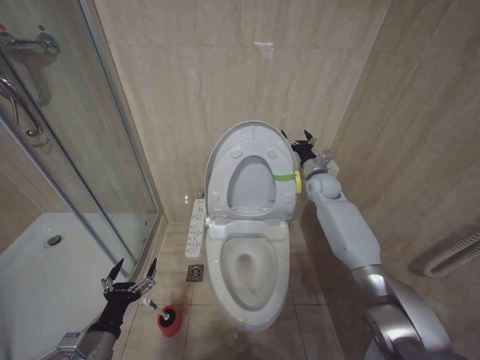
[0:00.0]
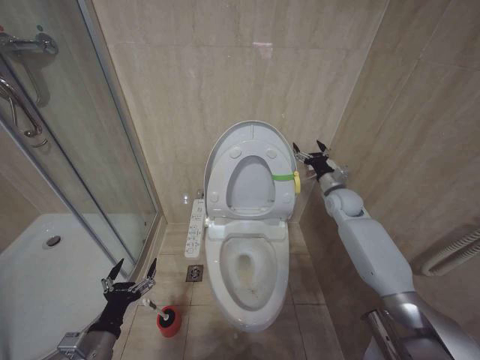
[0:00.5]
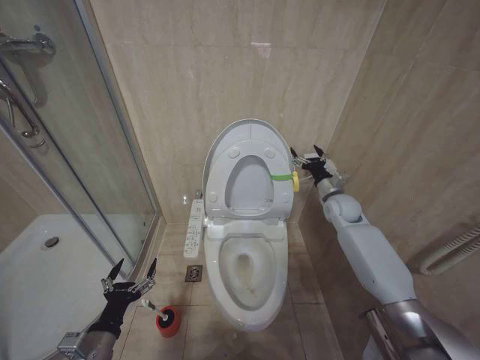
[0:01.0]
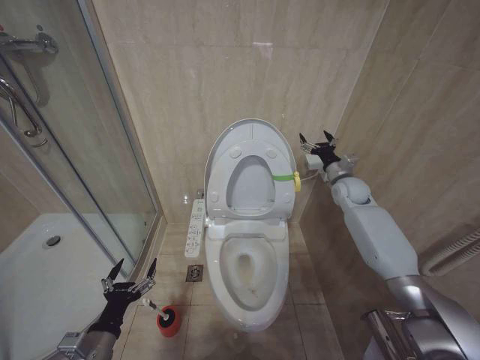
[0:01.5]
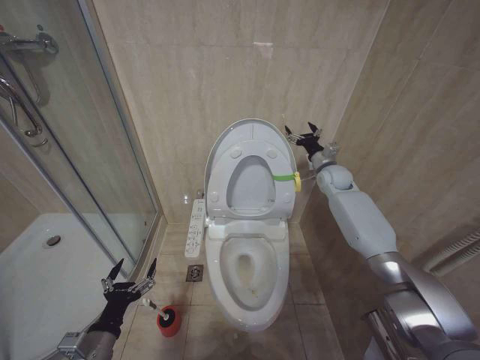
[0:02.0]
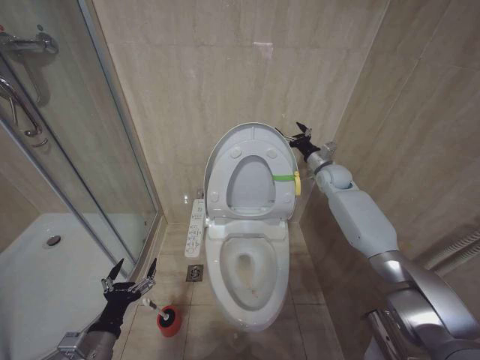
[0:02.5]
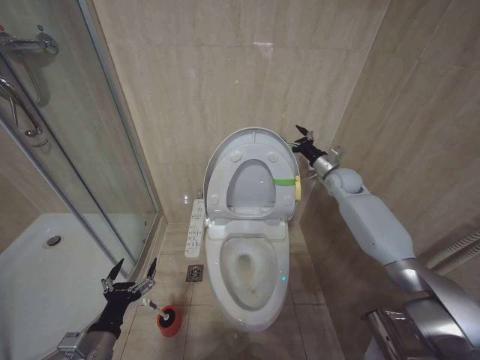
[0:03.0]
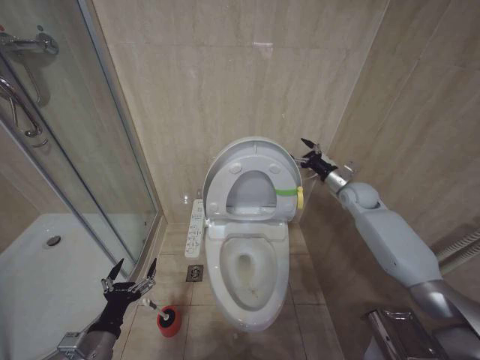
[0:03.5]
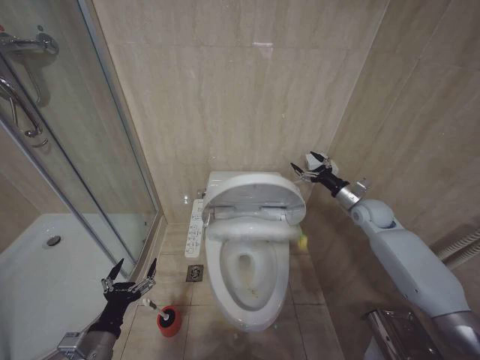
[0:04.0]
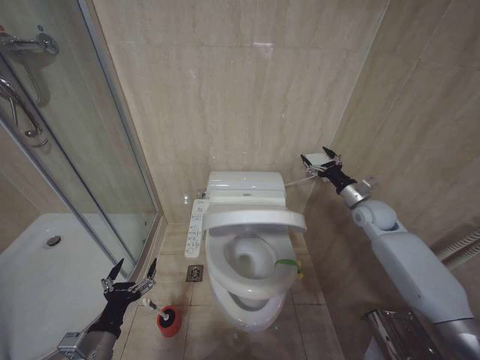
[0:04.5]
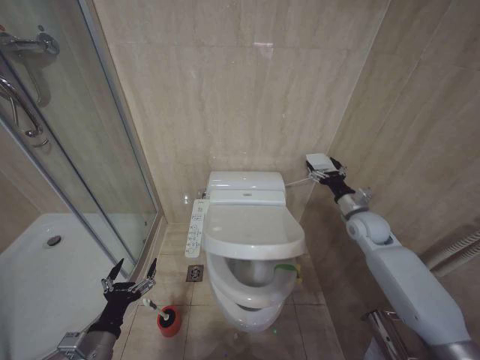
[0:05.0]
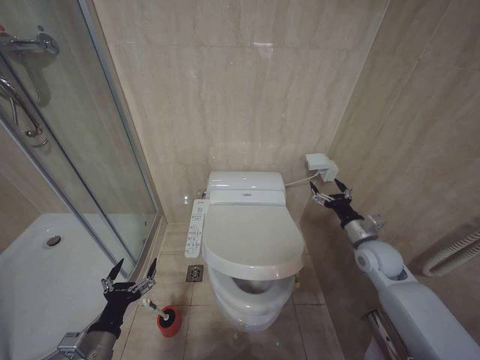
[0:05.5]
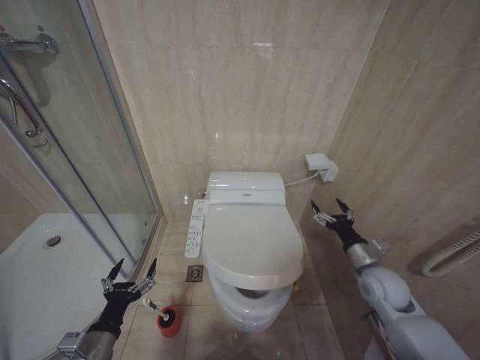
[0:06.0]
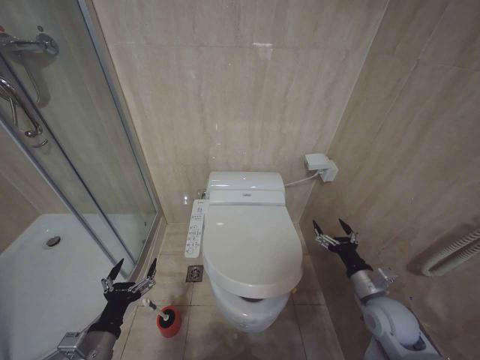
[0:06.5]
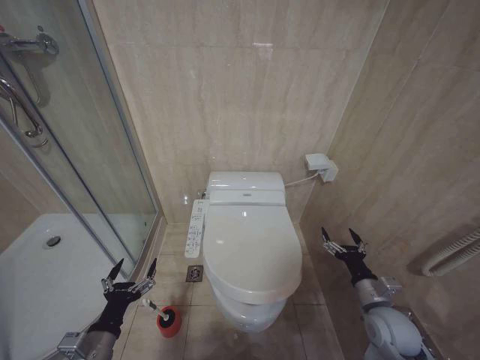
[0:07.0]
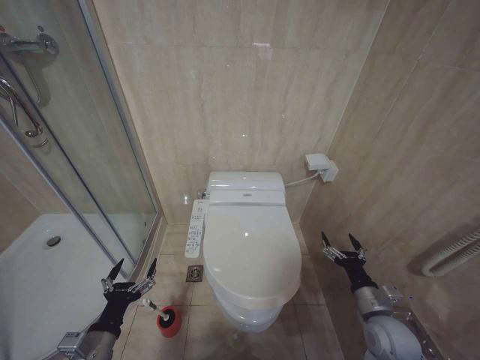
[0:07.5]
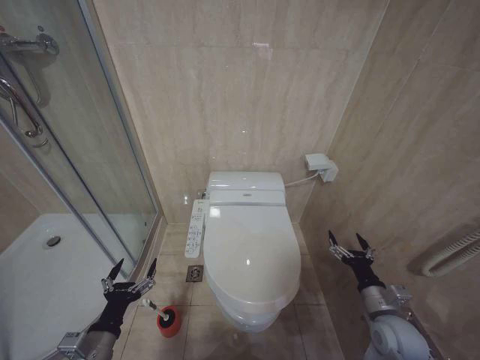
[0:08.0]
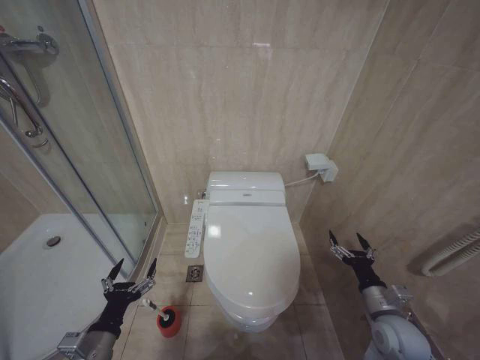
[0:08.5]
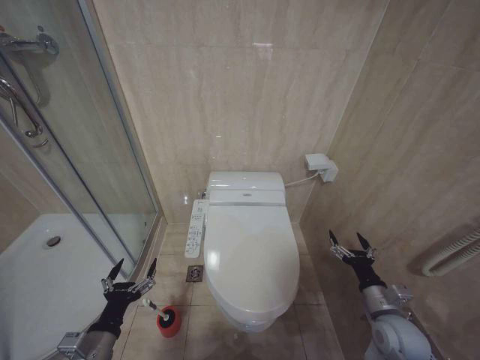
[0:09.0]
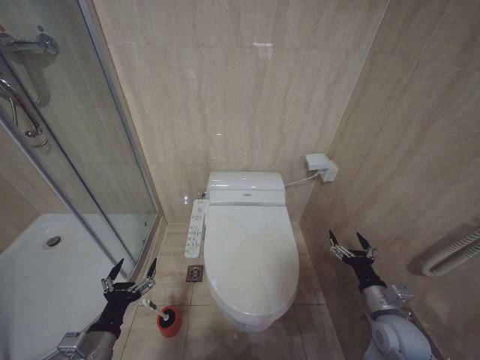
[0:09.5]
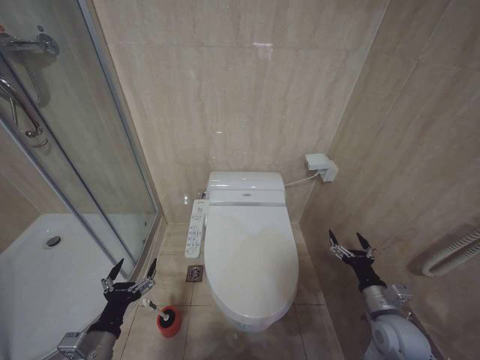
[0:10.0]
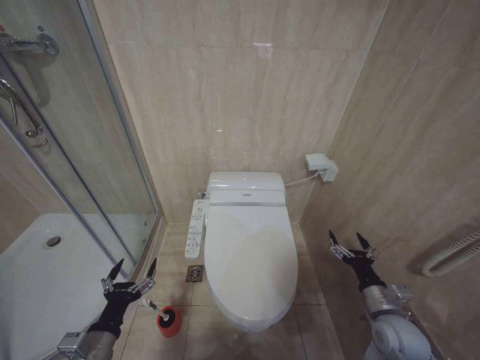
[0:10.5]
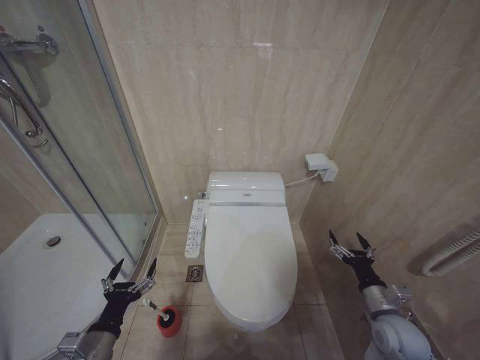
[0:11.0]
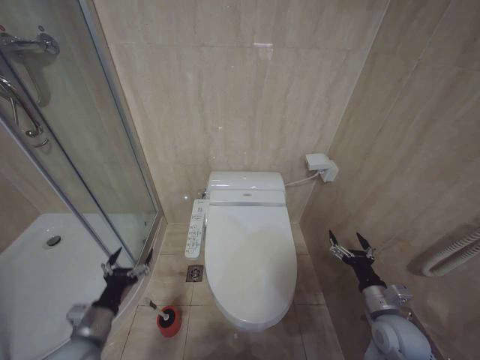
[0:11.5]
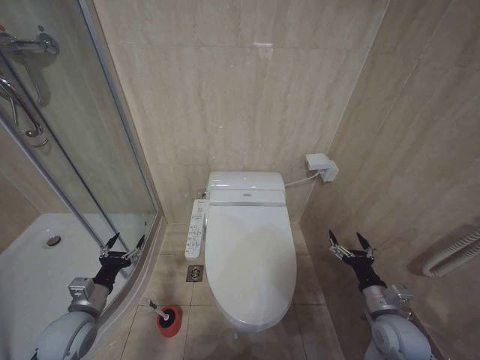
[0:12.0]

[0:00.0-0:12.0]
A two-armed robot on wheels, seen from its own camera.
Task of the whole recording: Open the toilet lid, clean the toilet bowl with a toilet brush, close the toilet lid, and flush.
0:02.0 to 0:04.0: The right gripper goes roughly 15 cm backward, to the right and downward.
0:04.0 to 0:06.0: The right gripper shifts approximately 20 cm backward and downward.
0:06.0 to 0:08.0: The right gripper shifts roughly 10 cm backward and downward.
0:08.0 to 0:10.0: The two grippers keep their place.
0:10.0 to 0:12.0: The left gripper shifts roughly 10 cm forward and to the left.

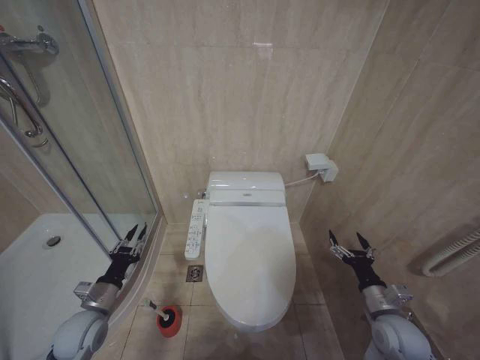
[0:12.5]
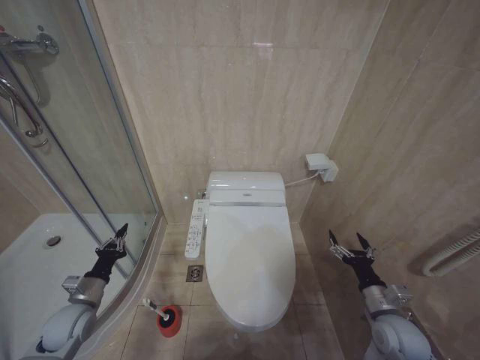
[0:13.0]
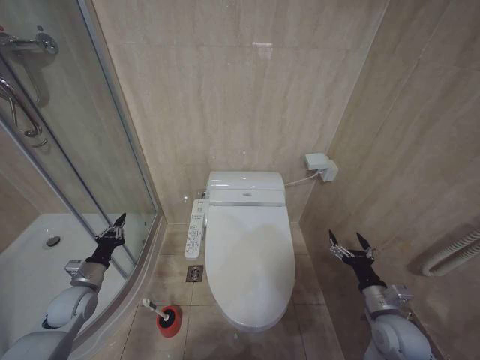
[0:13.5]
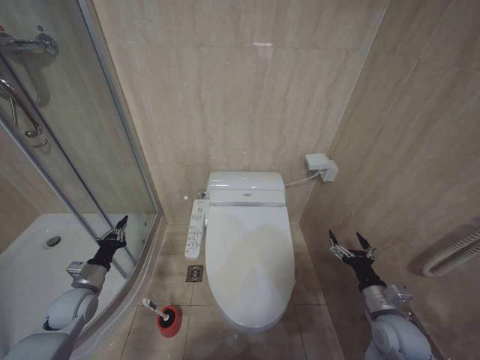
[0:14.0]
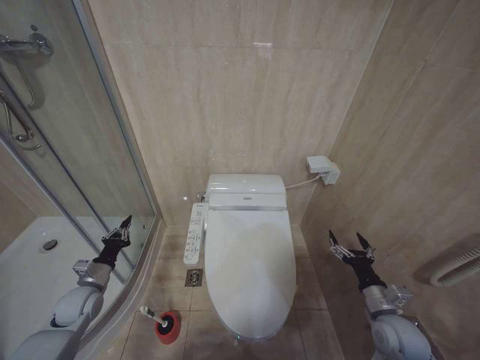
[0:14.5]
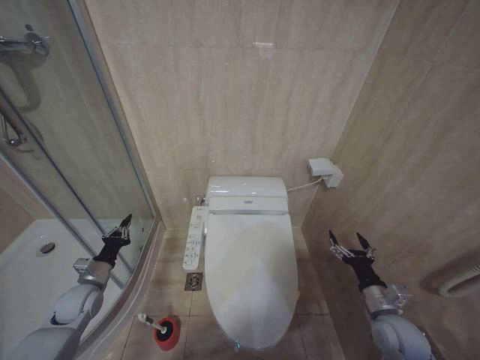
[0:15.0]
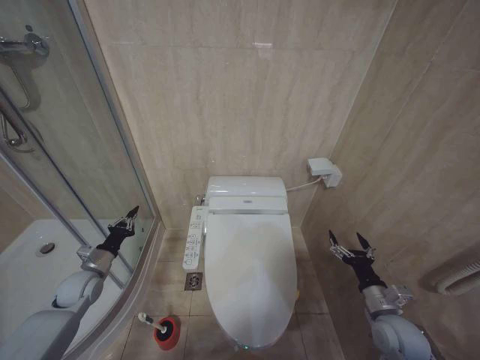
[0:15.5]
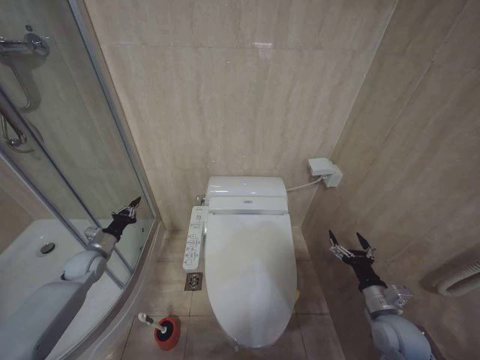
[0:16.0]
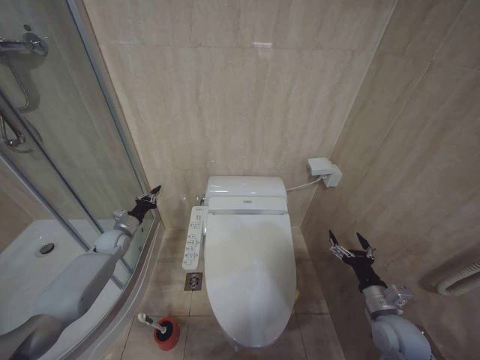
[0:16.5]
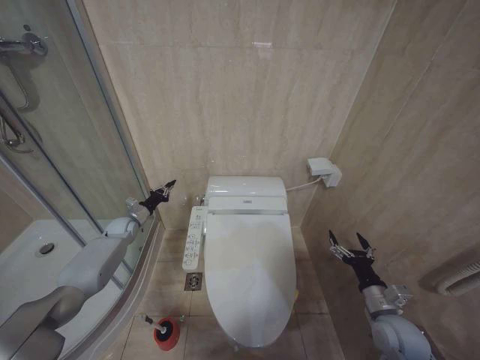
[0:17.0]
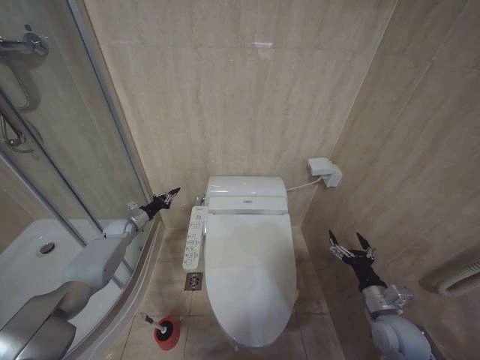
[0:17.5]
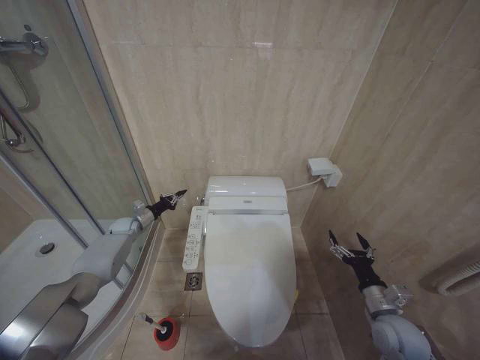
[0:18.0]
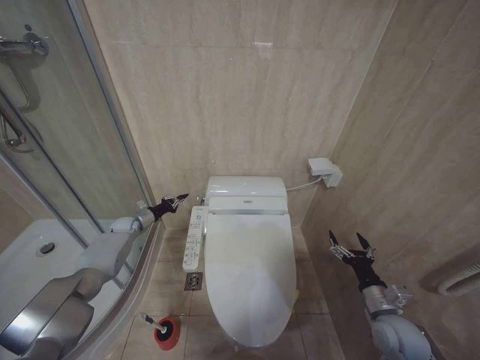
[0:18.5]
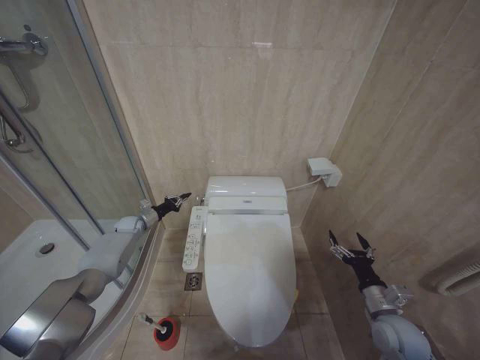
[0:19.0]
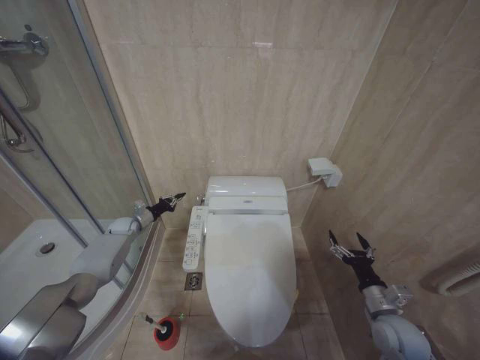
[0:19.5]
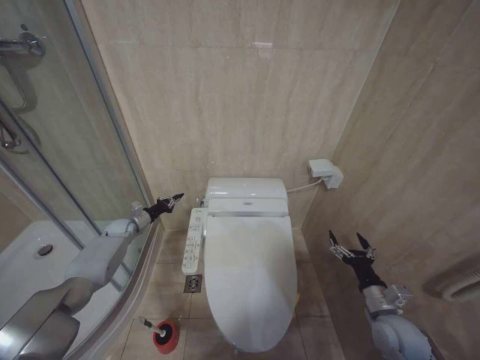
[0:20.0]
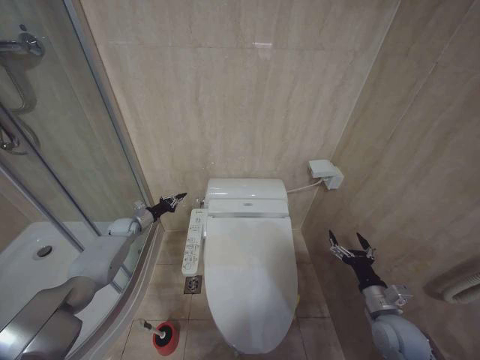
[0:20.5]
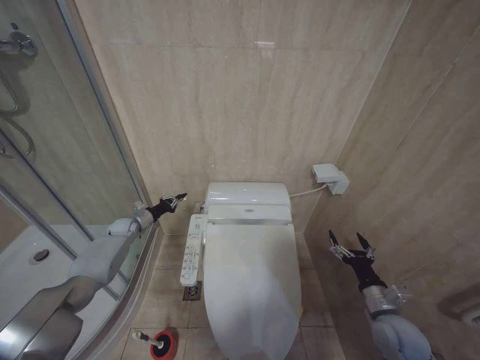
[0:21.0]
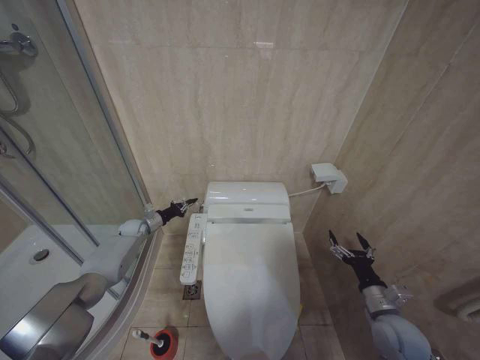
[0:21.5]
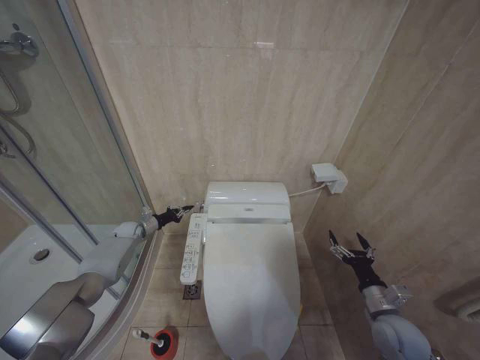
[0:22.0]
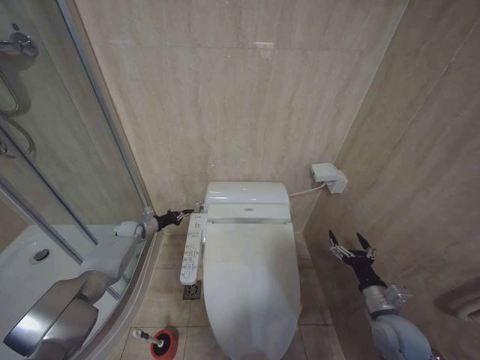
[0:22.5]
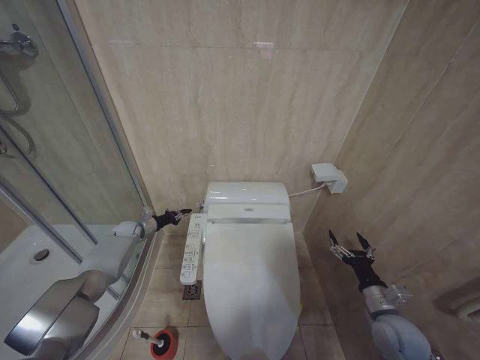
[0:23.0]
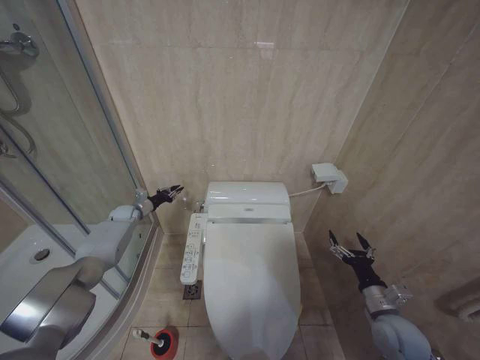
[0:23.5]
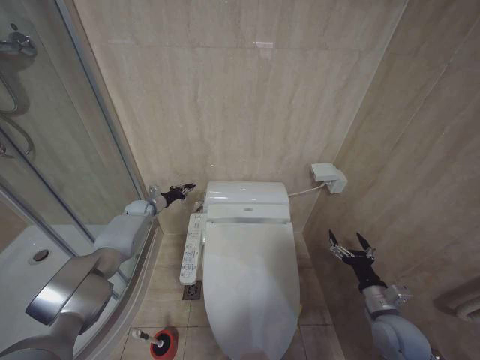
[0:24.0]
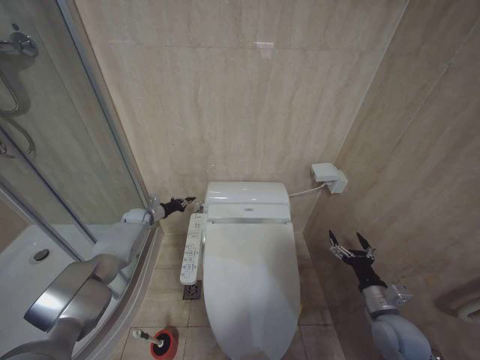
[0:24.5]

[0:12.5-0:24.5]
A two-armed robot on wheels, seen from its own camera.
Task of the whole recording: Open the toilet lid, clean the toilet bowl with a toilet brush, close the toilet lid, and flush.
0:12.5 to 0:14.5: The left gripper moves forward and to the left, about 10 cm, and closes up.
0:14.5 to 0:16.5: The left gripper moves forward, some 15 cm.
0:16.5 to 0:18.5: The left gripper shifts some 10 cm forward.
0:18.5 to 0:22.5: There are only small adjustments of the grippers.

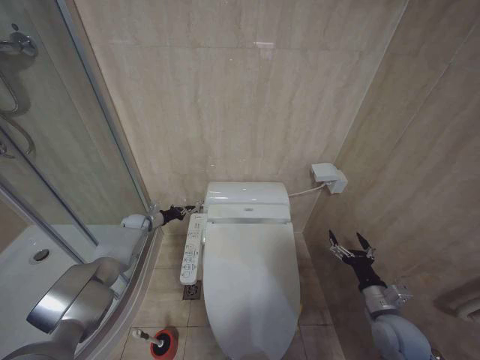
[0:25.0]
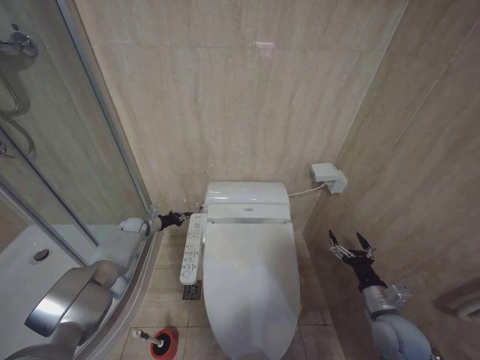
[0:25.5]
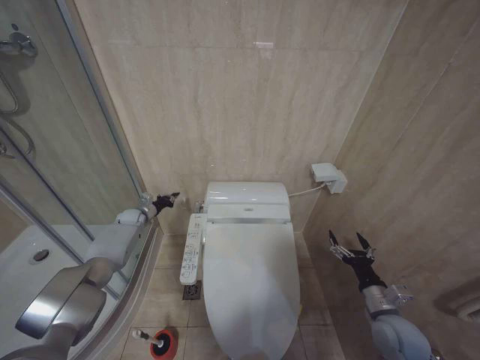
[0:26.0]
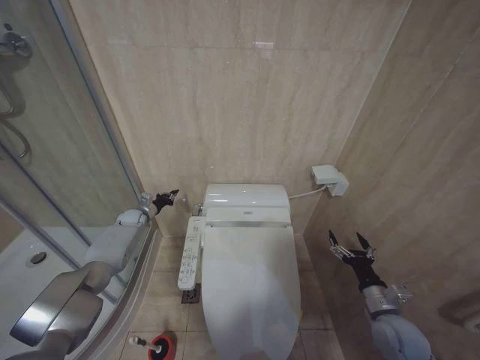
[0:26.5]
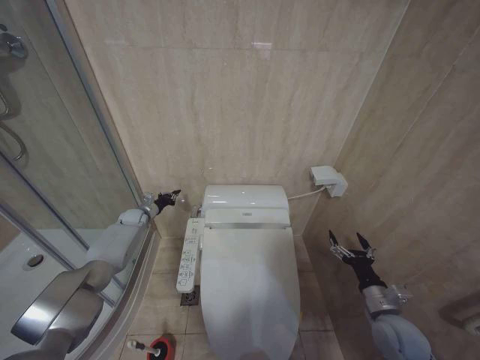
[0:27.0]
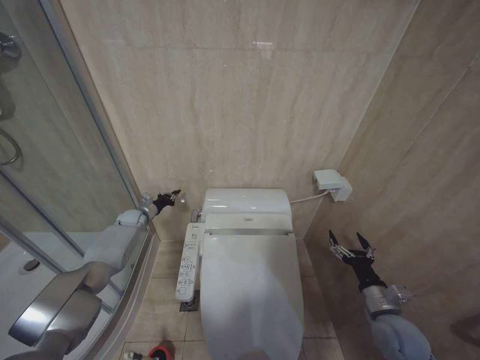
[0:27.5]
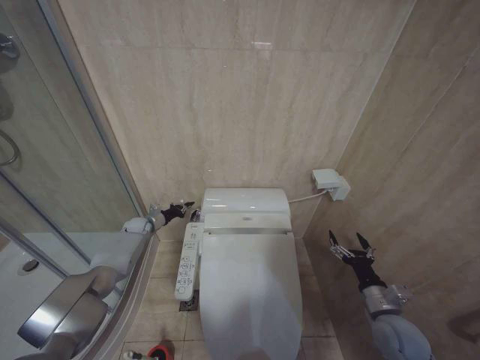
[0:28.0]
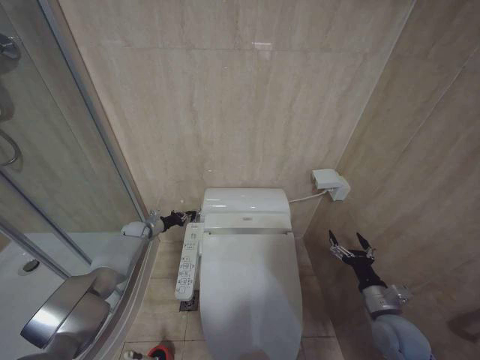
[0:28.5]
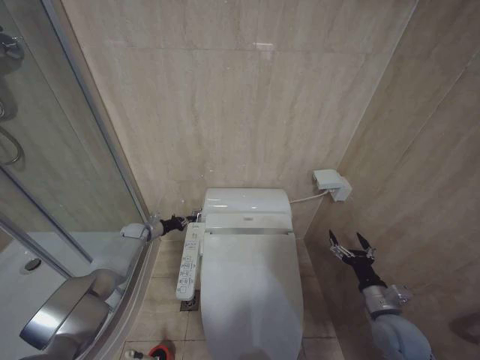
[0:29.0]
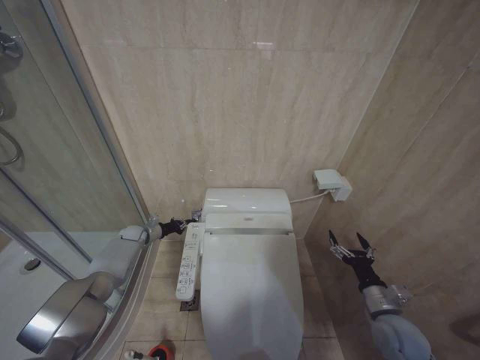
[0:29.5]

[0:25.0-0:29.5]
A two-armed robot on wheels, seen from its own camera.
Task of the whole recording: Open the toilet lid, clean the toilet bowl with a toilet brush, close the toilet lid, and flush.
0:27.0 to 0:29.5: The left gripper is displaced downward by about 5 cm.
